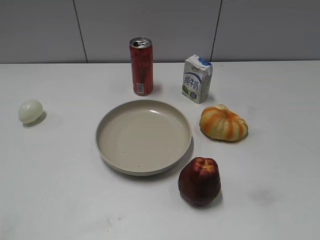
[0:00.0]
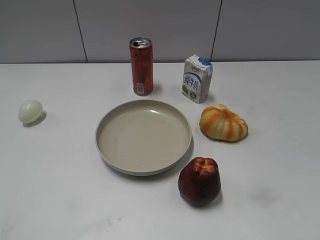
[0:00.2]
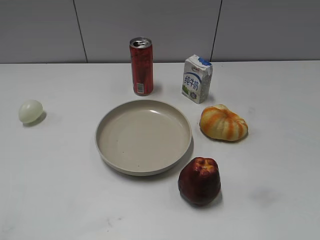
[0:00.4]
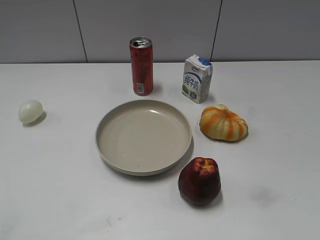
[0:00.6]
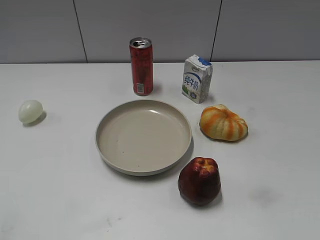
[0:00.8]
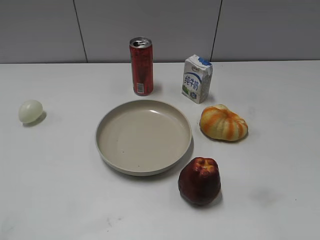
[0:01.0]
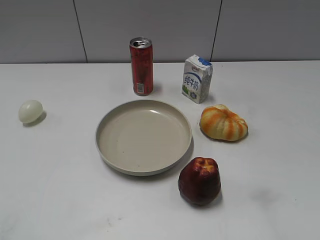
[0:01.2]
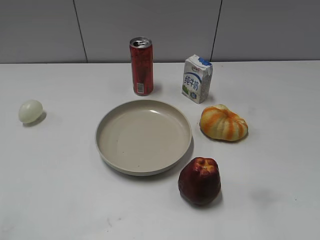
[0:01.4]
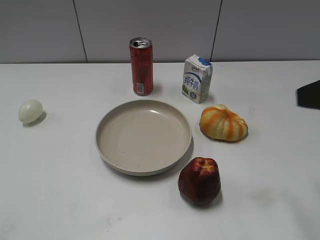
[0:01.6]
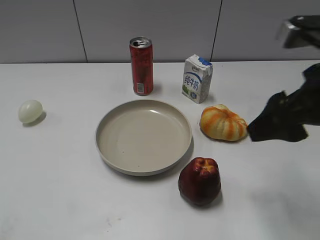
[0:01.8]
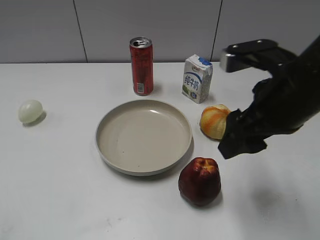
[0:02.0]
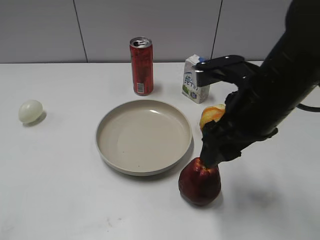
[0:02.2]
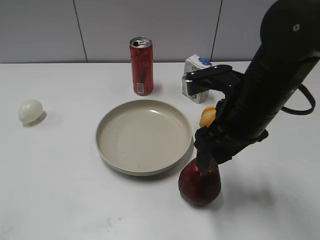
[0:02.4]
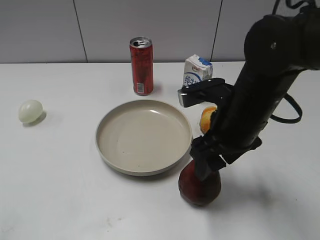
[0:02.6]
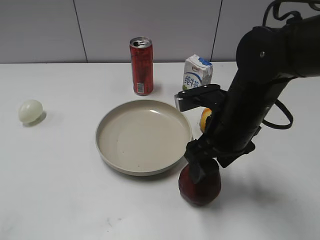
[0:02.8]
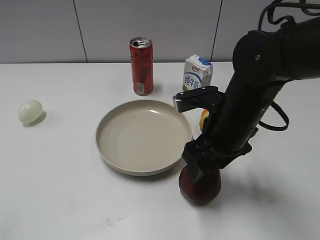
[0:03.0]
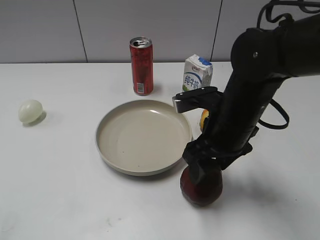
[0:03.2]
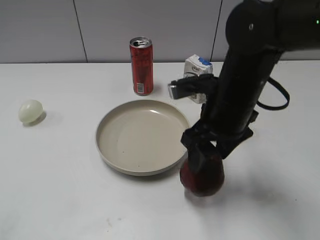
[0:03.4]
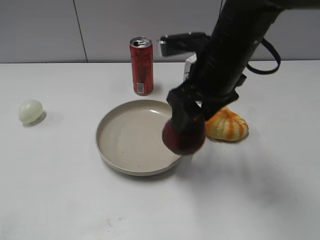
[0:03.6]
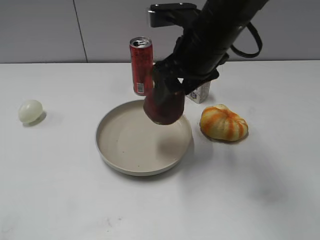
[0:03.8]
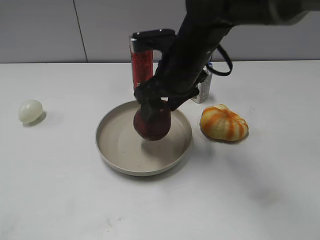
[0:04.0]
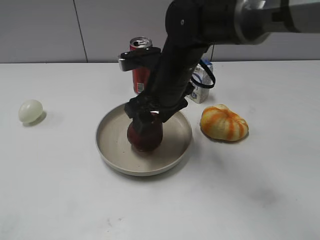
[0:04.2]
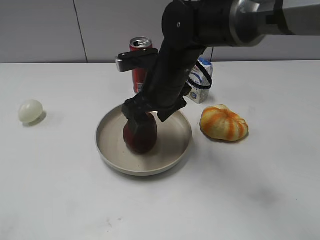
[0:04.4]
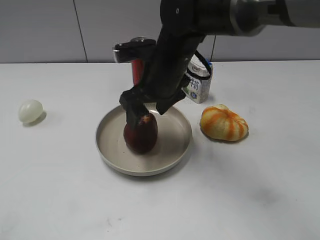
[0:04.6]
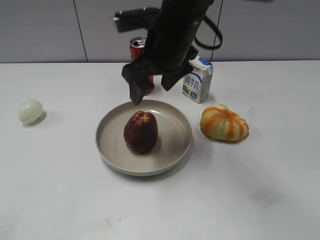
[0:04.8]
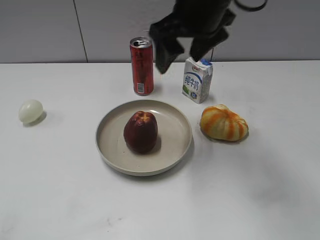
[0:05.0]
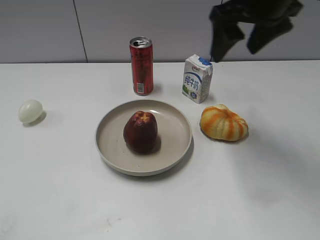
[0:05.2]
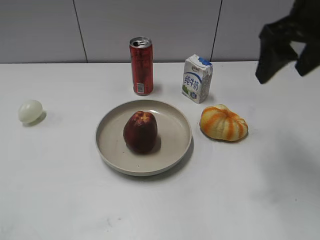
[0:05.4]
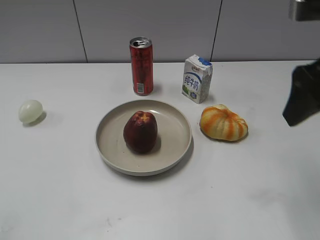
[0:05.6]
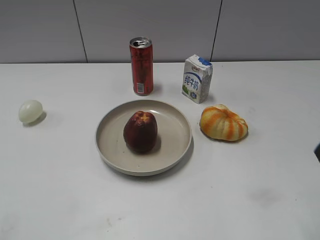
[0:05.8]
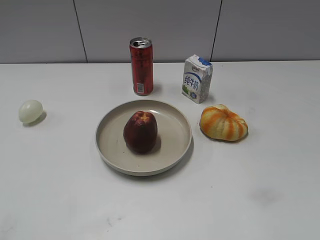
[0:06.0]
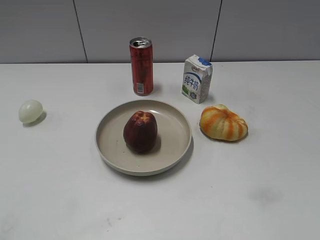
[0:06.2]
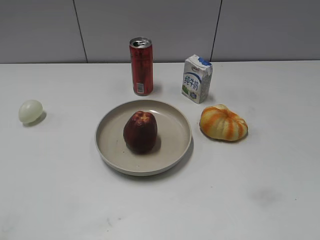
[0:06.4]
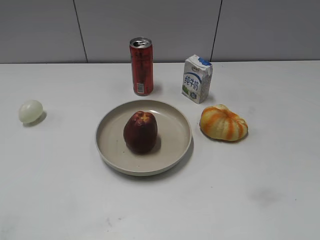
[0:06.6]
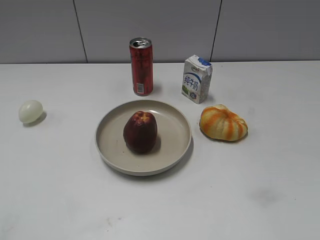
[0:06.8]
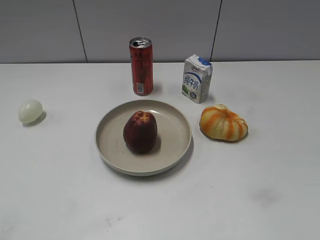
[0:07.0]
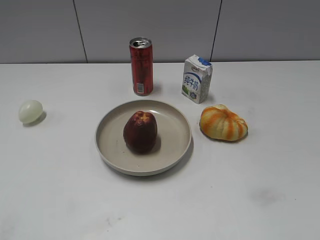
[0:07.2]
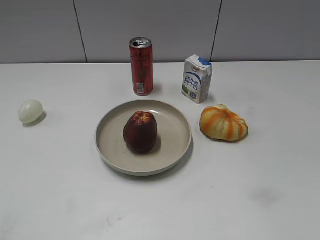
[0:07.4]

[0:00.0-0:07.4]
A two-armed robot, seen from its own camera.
Step, 0:00.8 to 0:03.0: Grasp the apple with right gripper.
Step, 0:03.2 to 0:04.6: Place the apple on the plate with right gripper.
0:01.4 to 0:03.0: The right gripper travels to the left, downward and forward by about 25 cm, and closes its fingers.
0:03.0 to 0:04.4: The right gripper heads to the left and forward, covering roughly 10 cm, and opens up.
0:04.4 to 0:06.0: The right gripper is displaced to the right, backward and upward by about 35 cm, and closes its fingers.
